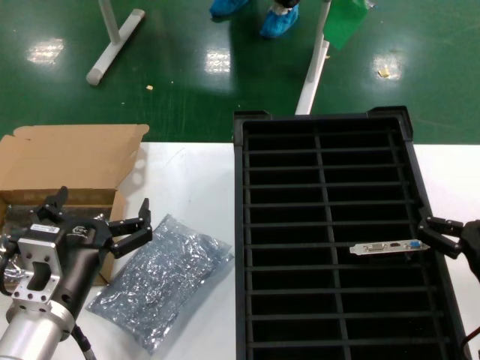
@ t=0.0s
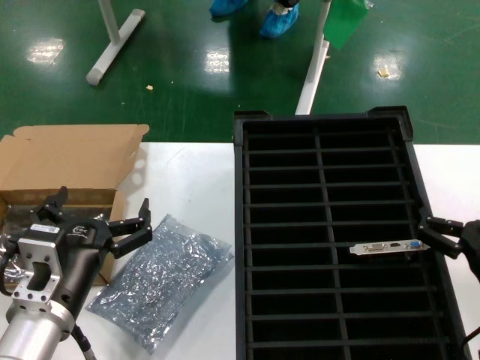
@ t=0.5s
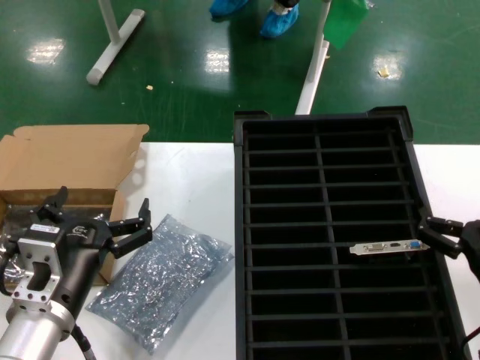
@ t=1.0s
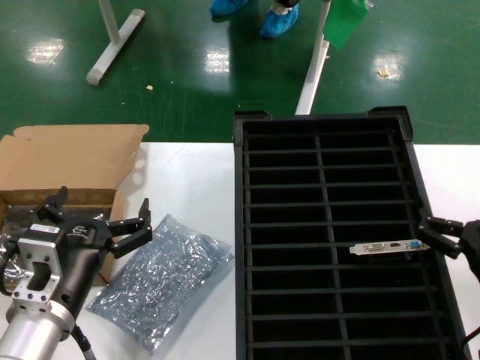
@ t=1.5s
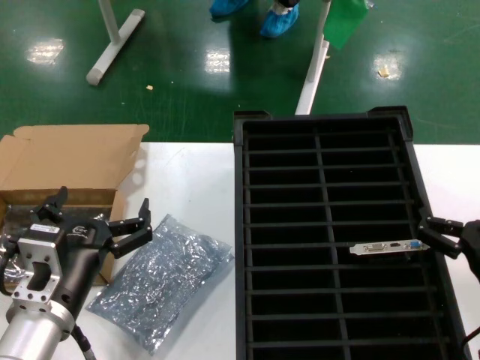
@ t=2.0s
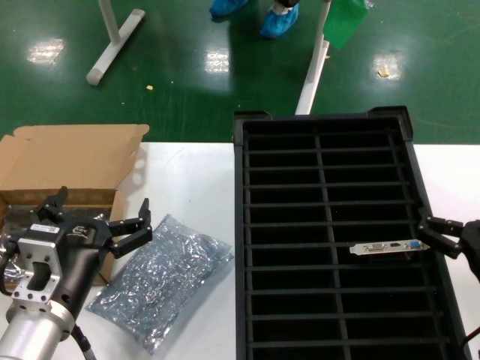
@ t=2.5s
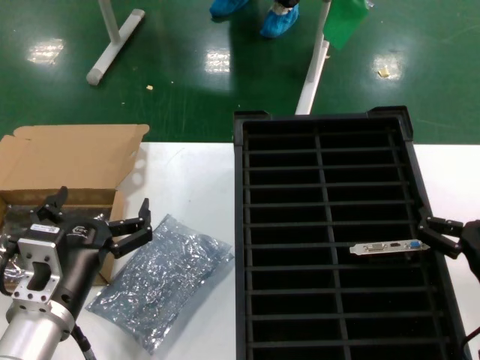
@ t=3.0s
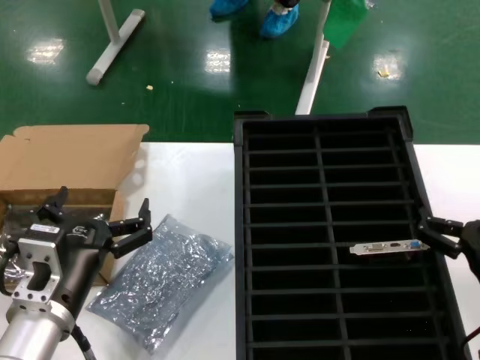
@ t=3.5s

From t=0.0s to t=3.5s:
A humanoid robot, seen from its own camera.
Task of the whole recording: take out graphics card from box remove packaging put into black container.
From t=0.0s to t=3.5s: Neither hand changes place.

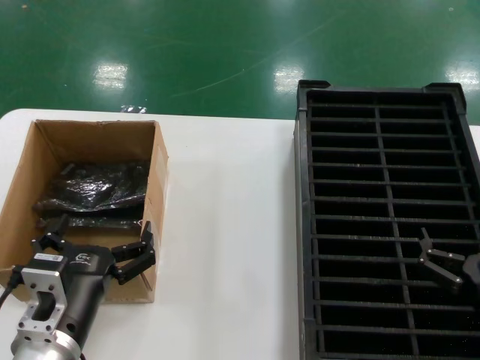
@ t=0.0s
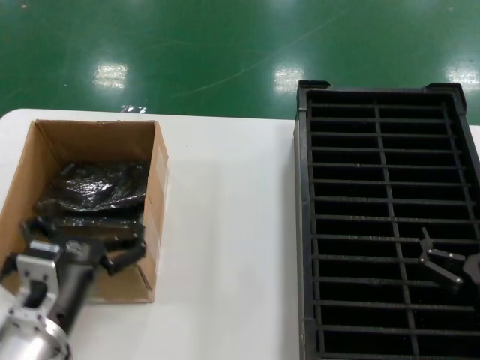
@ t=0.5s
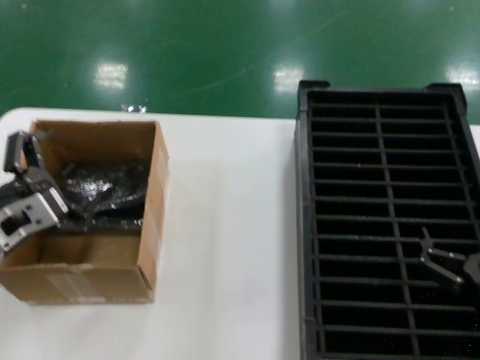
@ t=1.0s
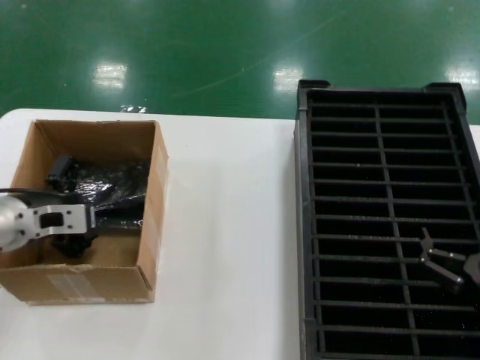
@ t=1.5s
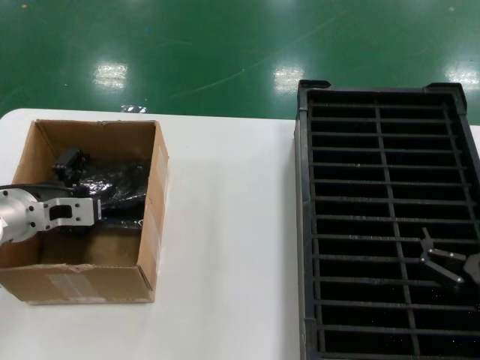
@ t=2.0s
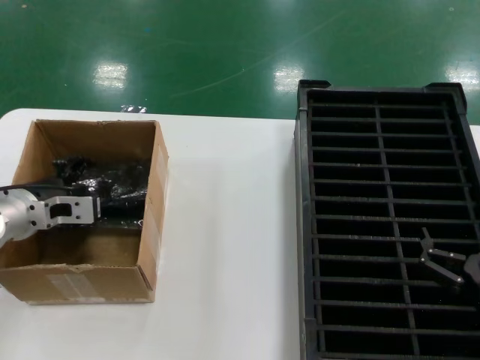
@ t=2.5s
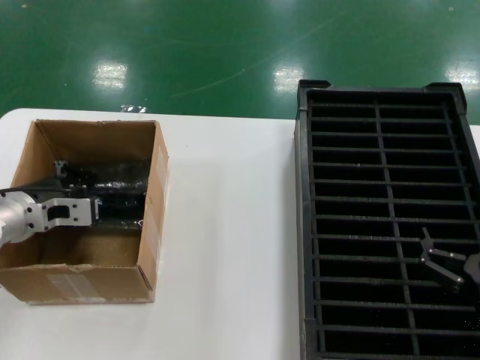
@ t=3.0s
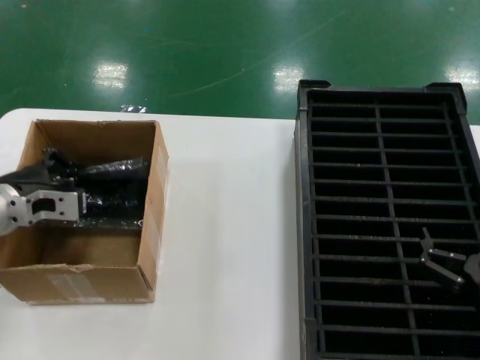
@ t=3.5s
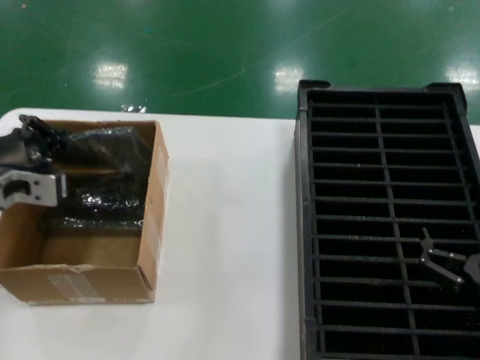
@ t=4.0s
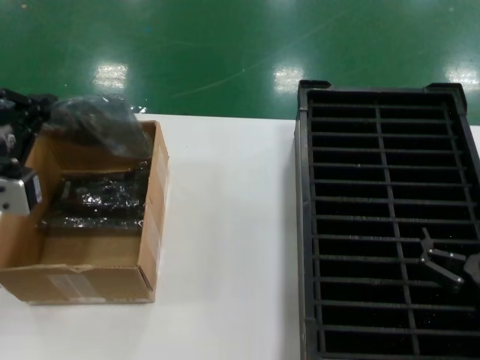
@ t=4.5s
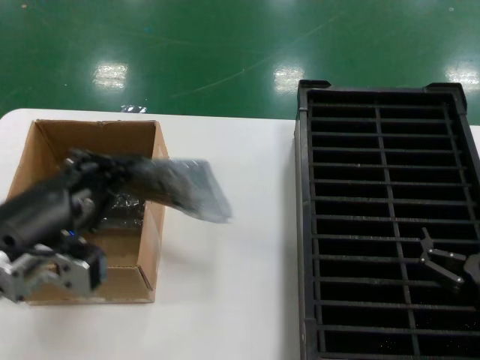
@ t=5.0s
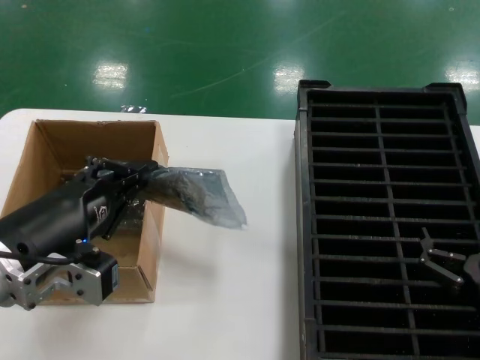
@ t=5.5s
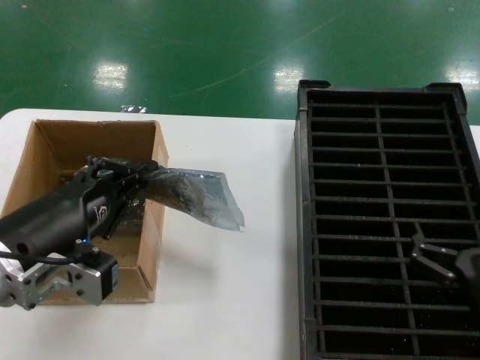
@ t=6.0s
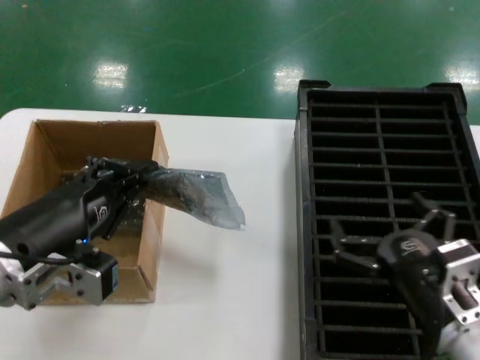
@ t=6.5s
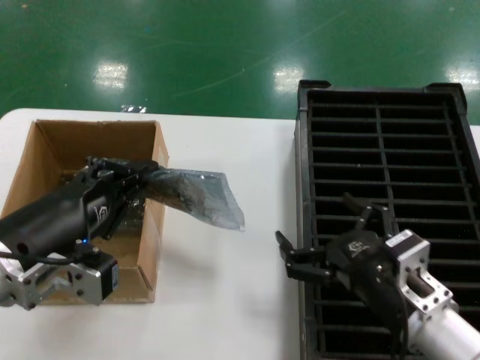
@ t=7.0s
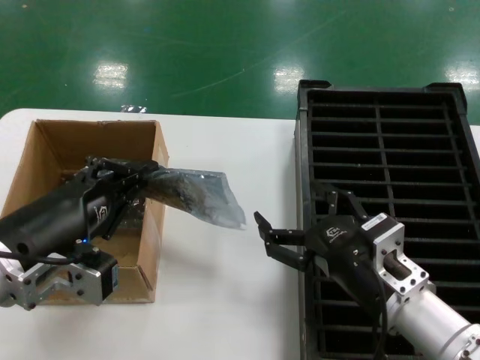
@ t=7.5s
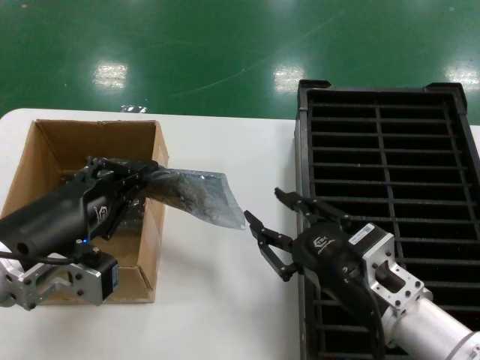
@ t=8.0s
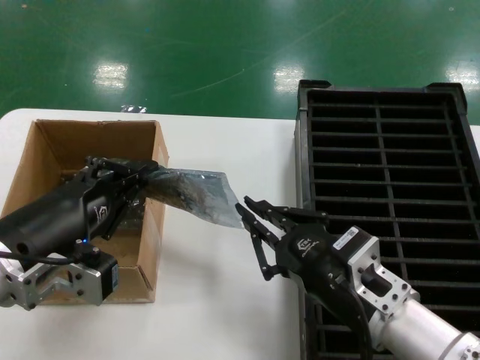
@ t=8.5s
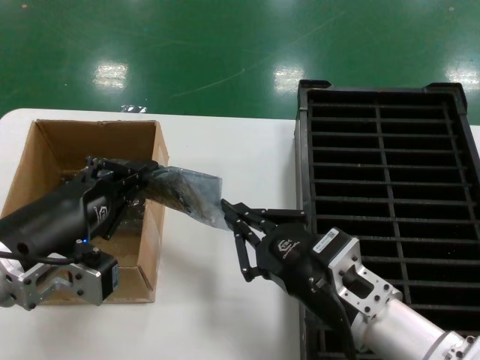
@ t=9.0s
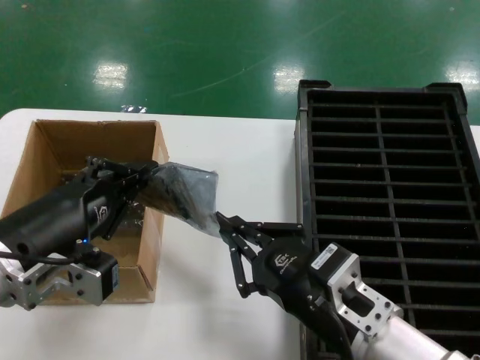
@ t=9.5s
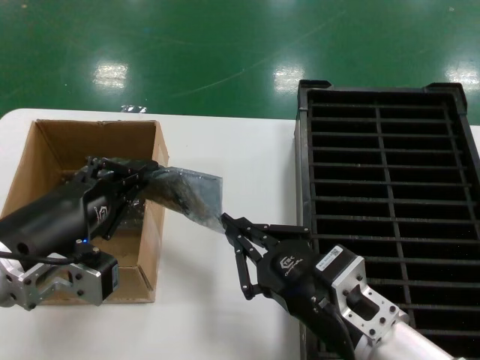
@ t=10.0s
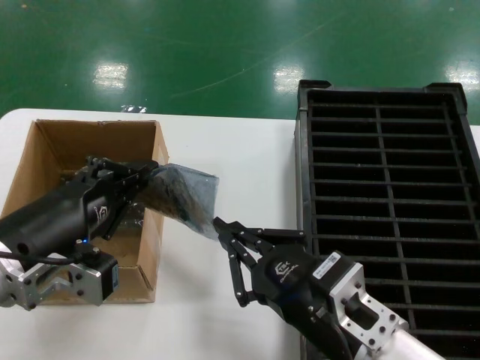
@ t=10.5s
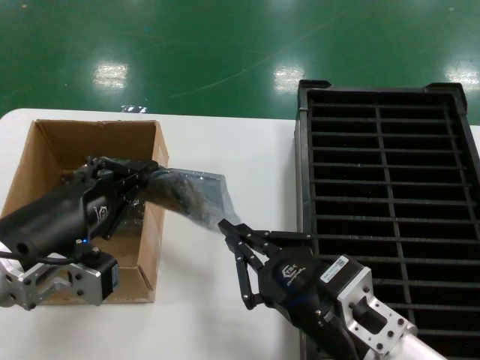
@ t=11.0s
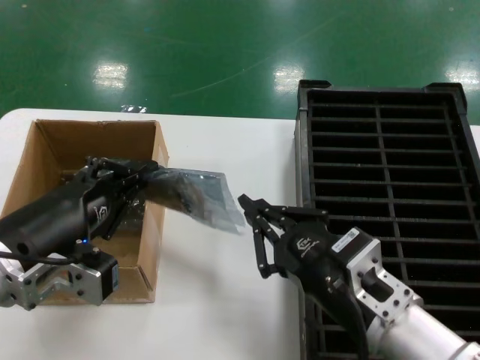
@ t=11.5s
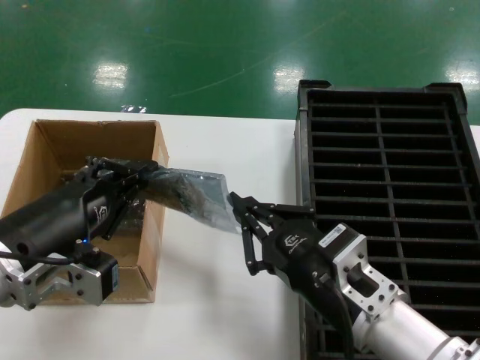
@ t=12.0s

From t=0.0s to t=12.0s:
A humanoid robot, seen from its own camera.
Task of the whole recording: take out graphics card from box remove packaging put into black container.
Step, from t=0.0s to t=3.0s: Grasp the bag.
Step, from t=3.5s to t=5.5s: Lift the bag.
From t=0.0s to t=2.0s: The left hand moves forward, to the left and upward, approximately 25 cm.
From t=2.0s to t=4.0s: The left hand goes about 10 cm upward and backward.
From t=4.0s to t=6.0s: The left hand heads backward and to the right, covering about 15 cm.
From t=6.0s to t=8.0s: The right hand goes approximately 10 cm to the left and upward.
From t=8.0s to t=10.0s: The right hand changes place by about 5 cm.
From t=10.0s to t=12.0s: The hands move only a little.

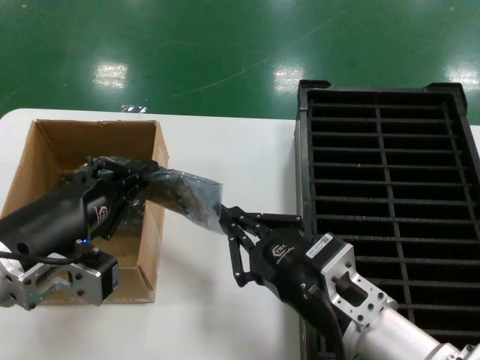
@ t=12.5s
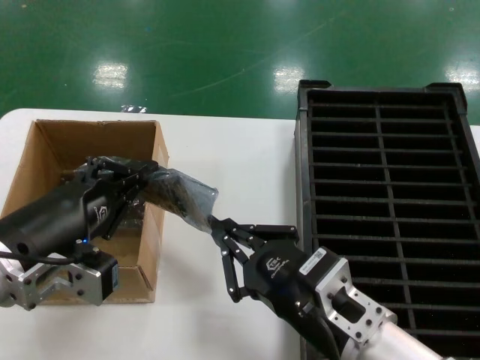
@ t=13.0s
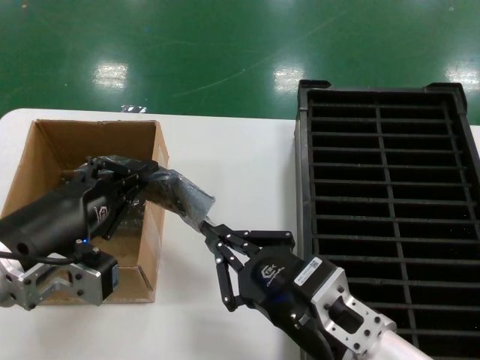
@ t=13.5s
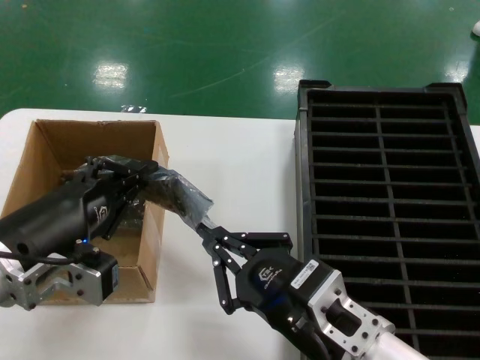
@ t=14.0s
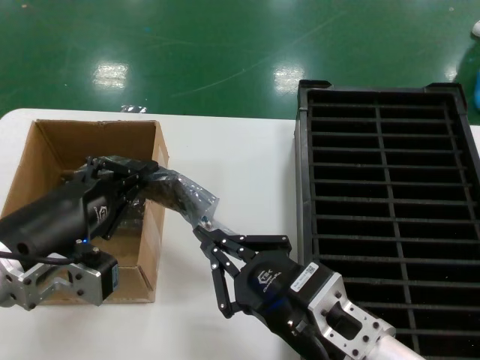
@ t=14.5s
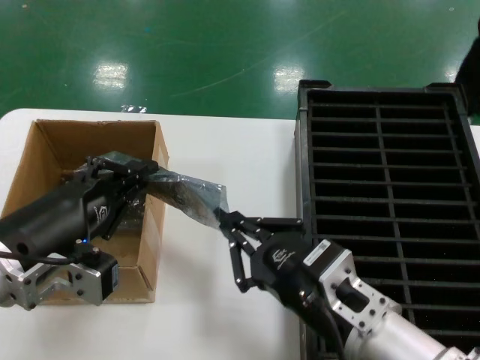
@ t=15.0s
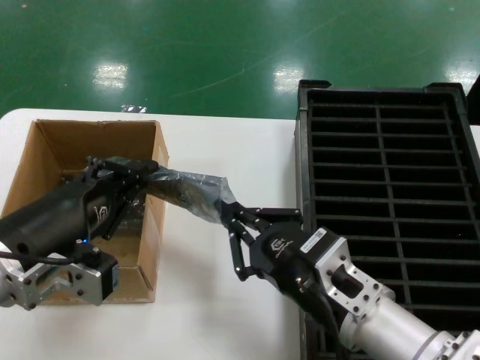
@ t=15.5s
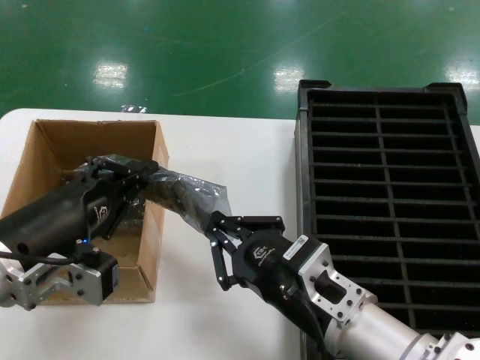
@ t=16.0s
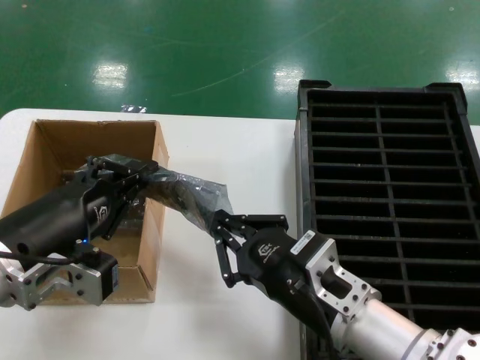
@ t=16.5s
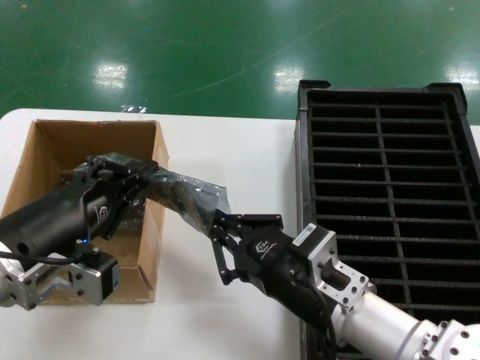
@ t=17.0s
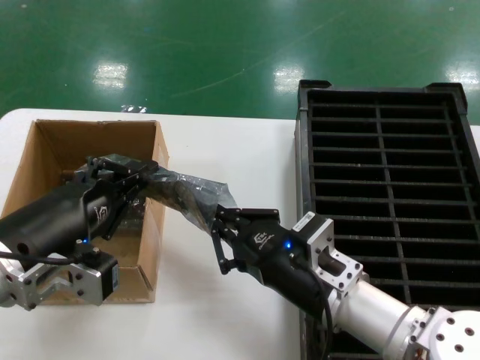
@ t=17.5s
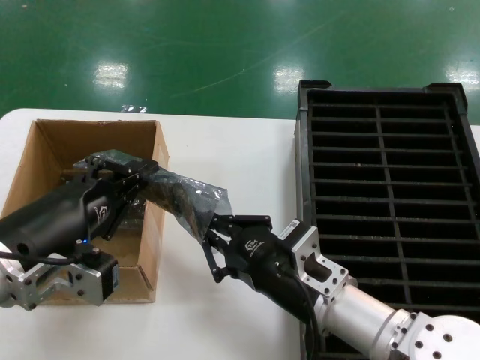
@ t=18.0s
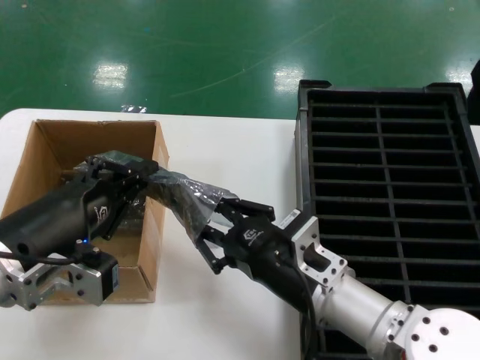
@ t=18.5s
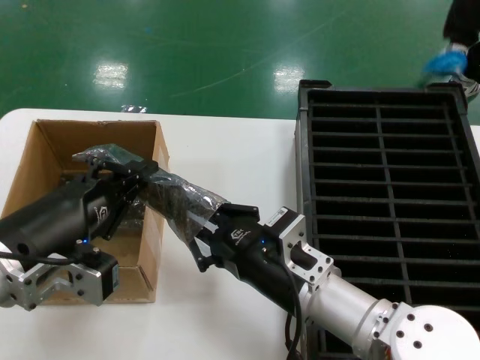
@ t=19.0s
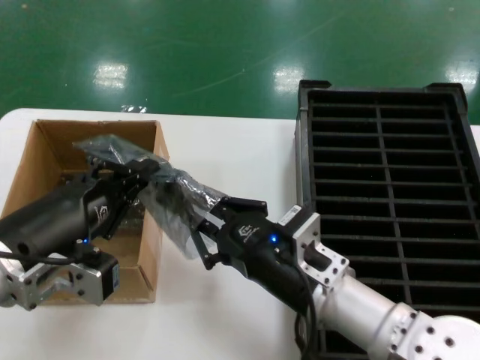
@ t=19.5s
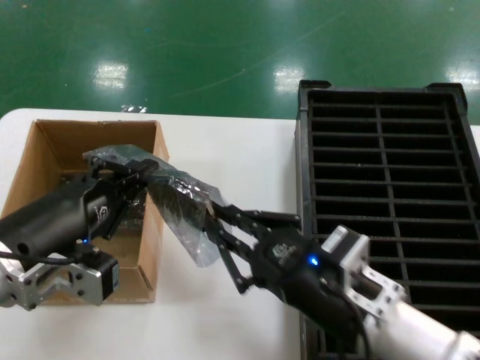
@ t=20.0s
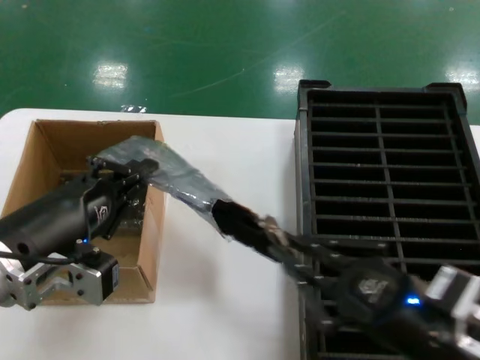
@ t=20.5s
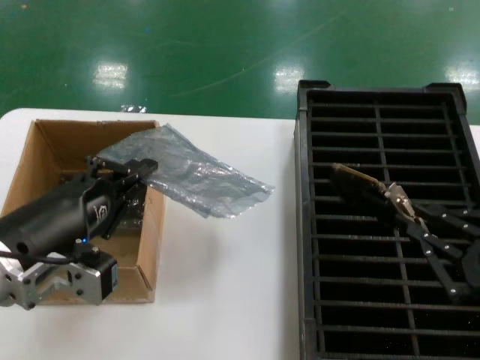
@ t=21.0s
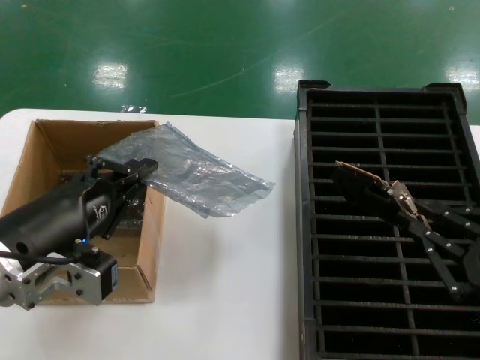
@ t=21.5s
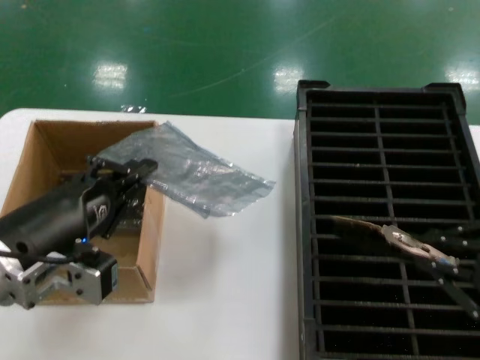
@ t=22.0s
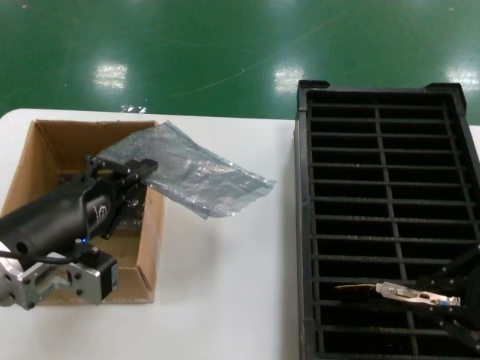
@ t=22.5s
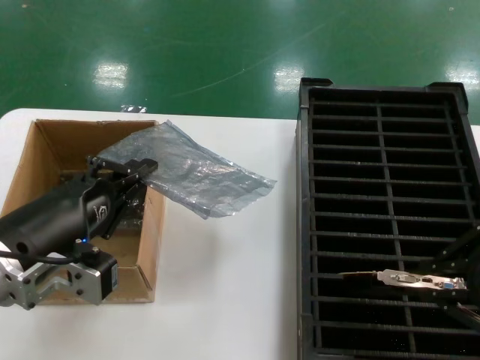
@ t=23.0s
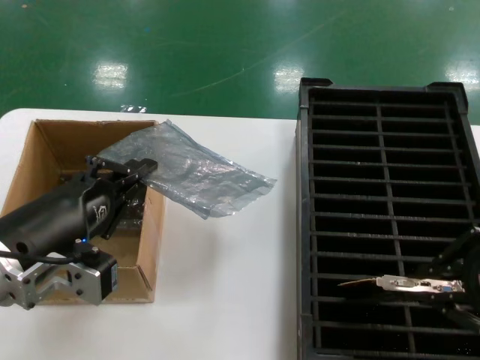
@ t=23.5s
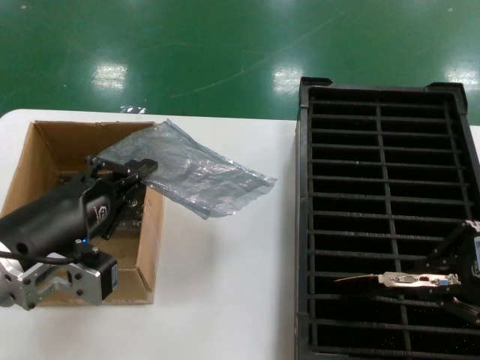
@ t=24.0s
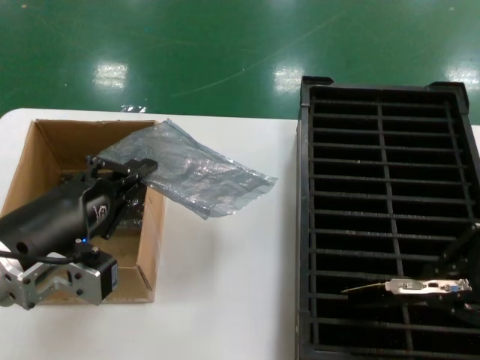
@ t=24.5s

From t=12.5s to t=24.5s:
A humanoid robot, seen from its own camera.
Task of the whole recording: take out graphics card from box remove packaging put into black container.
Step, from t=12.5s to t=20.5s: Take out the hard disk of the bag.
From t=12.5s to t=14.5s: The hands stay close to where they were, moving slightly.
From t=14.5s to t=16.5s: The right hand goes some 5 cm forward.
From t=16.5s to t=18.5s: The right hand ends up roughly 5 cm from where it was.
From t=18.5s to t=20.5s: The right hand heads to the right, backward and upward, covering some 15 cm.
From t=20.5s to t=22.5s: The right hand heads upward and to the right, covering about 15 cm.
From t=22.5s to t=24.5s: The right hand ends up approximately 5 cm from where it was.
